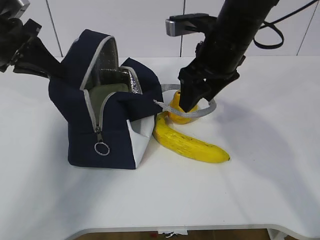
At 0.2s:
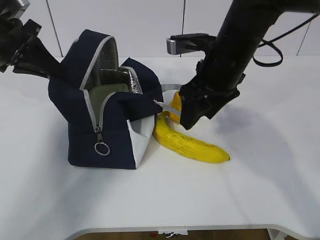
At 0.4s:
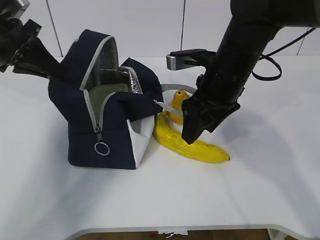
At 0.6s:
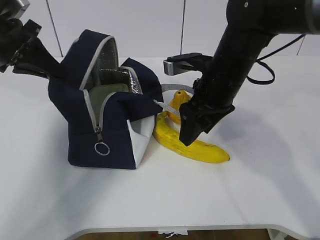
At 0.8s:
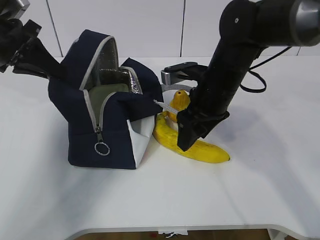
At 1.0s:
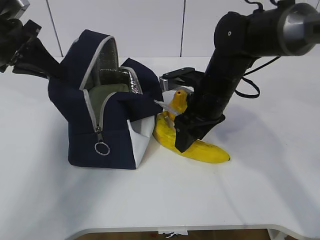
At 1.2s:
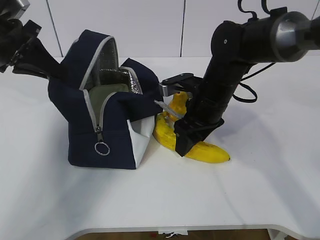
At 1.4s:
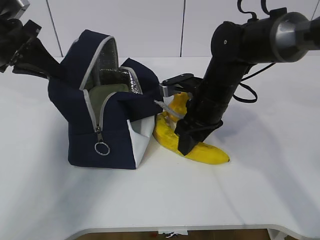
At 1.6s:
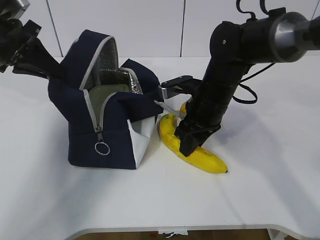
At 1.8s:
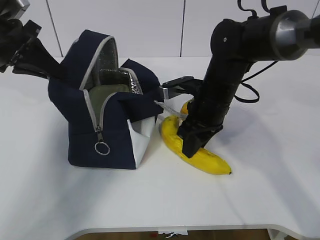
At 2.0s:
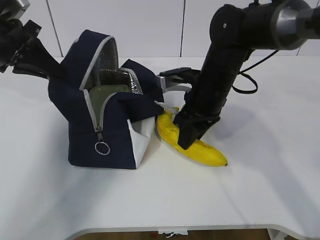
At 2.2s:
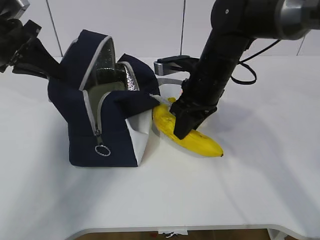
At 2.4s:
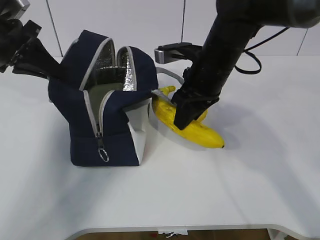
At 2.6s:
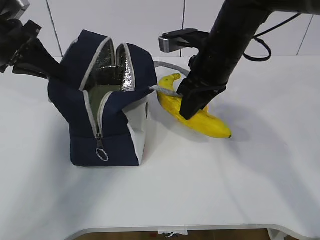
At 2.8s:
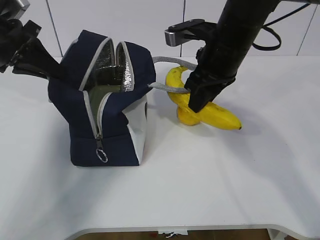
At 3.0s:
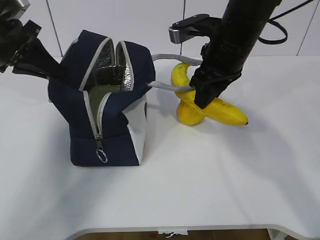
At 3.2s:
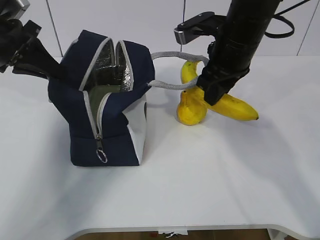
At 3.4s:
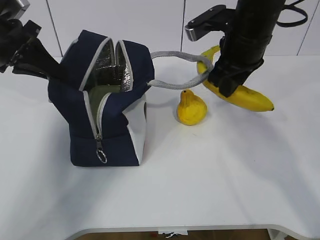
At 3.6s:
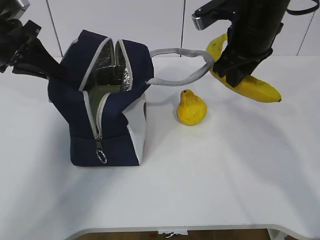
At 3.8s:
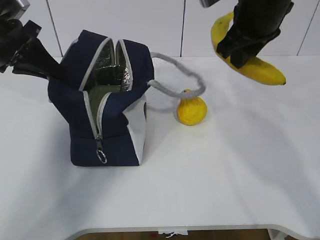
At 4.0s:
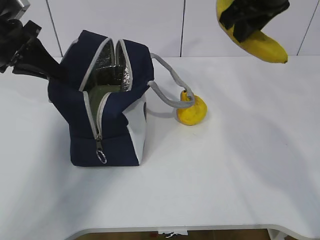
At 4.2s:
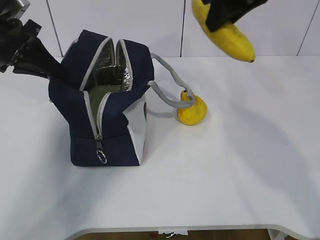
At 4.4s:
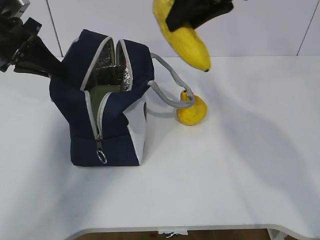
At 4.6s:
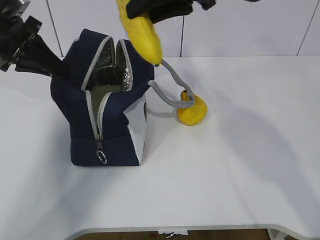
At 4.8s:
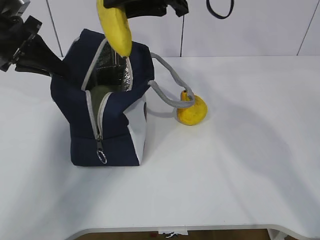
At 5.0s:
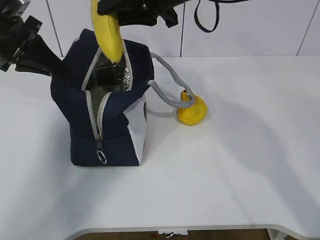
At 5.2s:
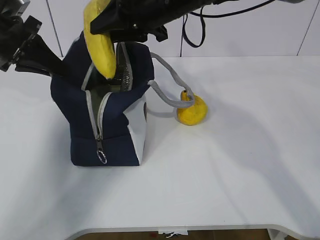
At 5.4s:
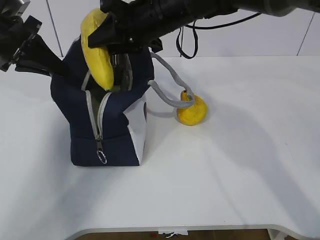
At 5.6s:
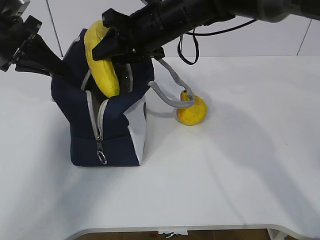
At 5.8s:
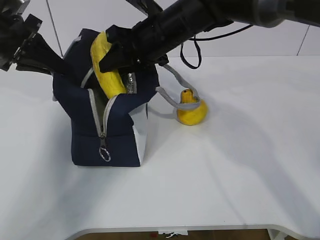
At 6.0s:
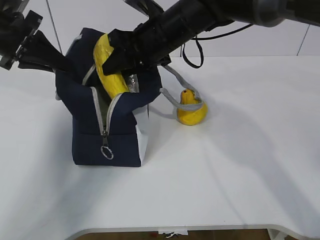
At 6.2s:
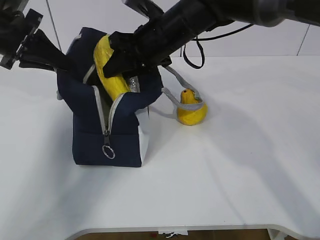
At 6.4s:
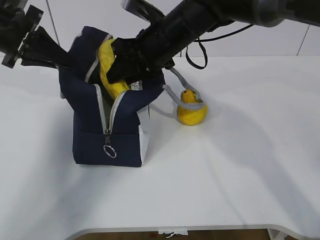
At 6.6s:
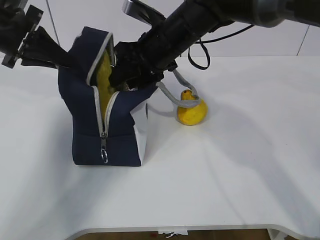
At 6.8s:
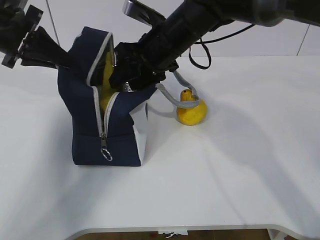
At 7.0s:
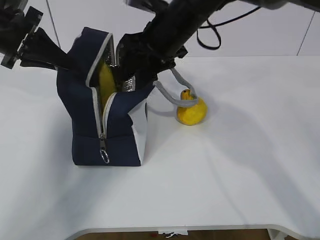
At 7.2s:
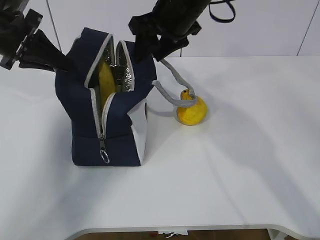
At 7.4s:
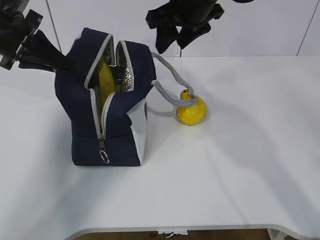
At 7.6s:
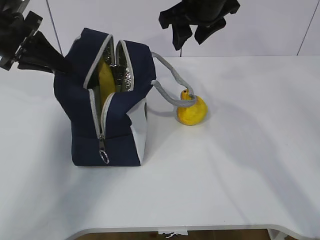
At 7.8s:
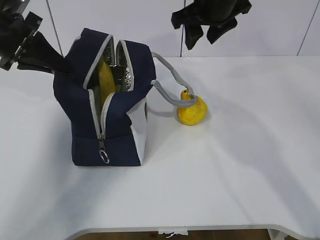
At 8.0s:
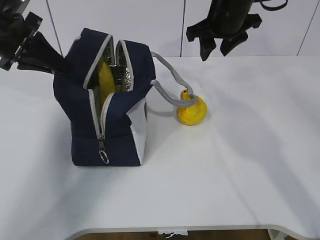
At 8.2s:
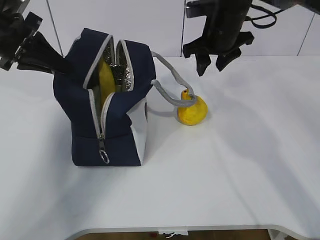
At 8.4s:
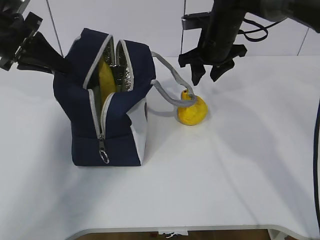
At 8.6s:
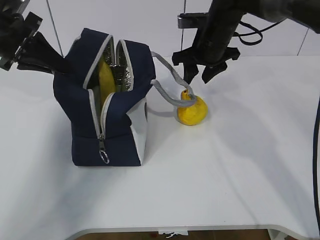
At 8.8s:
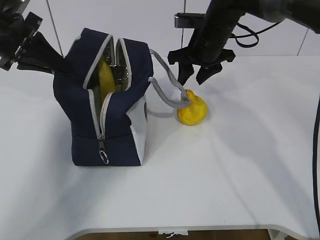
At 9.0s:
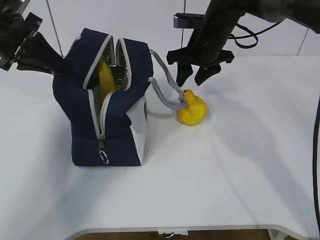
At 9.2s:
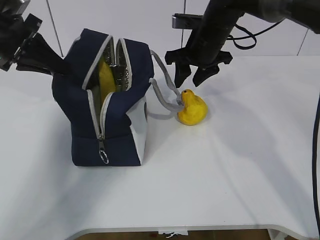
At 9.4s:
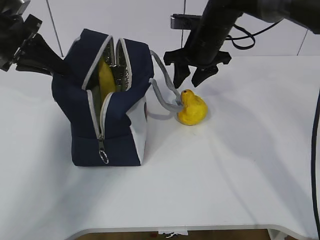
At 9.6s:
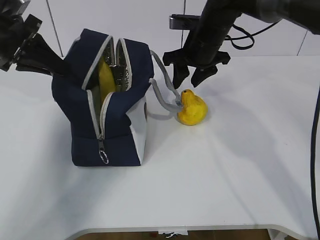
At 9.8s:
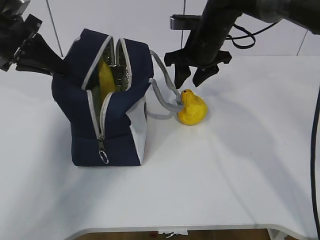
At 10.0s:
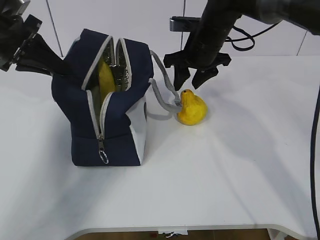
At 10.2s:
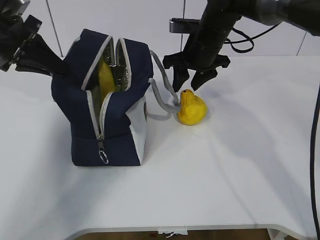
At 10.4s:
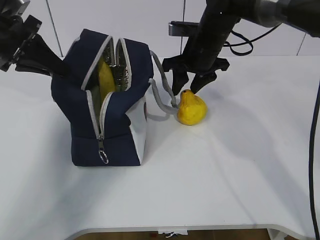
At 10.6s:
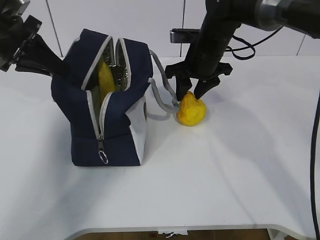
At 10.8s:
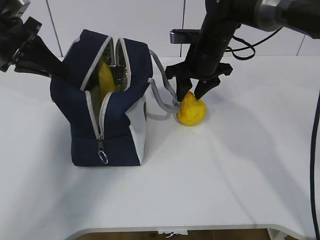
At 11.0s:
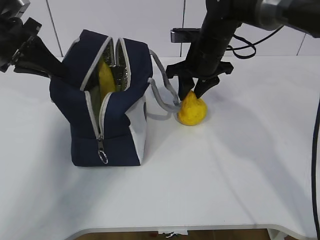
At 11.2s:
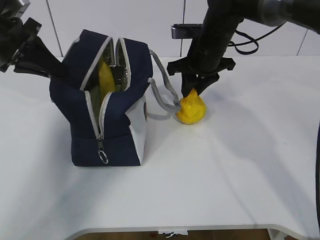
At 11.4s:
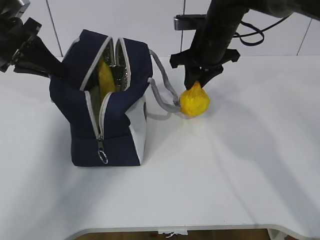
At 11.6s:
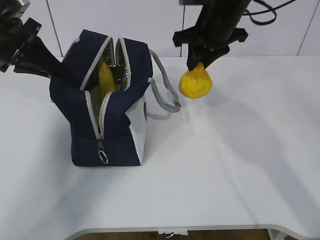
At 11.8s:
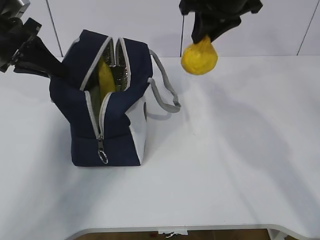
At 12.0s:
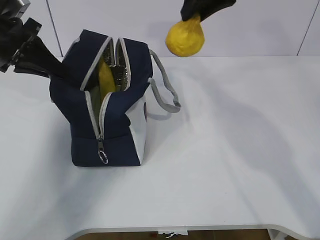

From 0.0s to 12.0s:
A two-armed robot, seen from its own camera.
Step, from 0.0s to 3.2s: Place it into the bag with your right hand.
Step, from 3.4s to 6.4s: Grab the pear with your right hand.
Step, from 8.6s to 9.4s: Grab the lunch bag with your right hand.
Step, from 9.6s to 11.0s: Move the lunch bag to the right.
From 0.0s to 1.6s: The right gripper moves downward, roughly 10 cm, and closes its fingers.
From 1.6s to 3.0s: The right gripper heads upward, covering about 10 cm.
From 3.0s to 4.4s: The right gripper moves upward, about 10 cm.
From 4.4s to 6.0s: The right gripper is displaced downward, to the left and forward by about 15 cm.
From 6.0s to 7.6s: The right gripper travels upward and to the right by approximately 10 cm.
From 7.6s to 9.0s: The right gripper travels downward by roughly 10 cm.
From 9.0s to 10.4s: The grippers move only a little.
From 10.4s to 12.0s: The right gripper shifts some 15 cm upward.

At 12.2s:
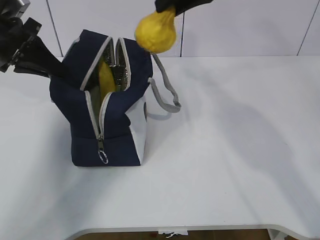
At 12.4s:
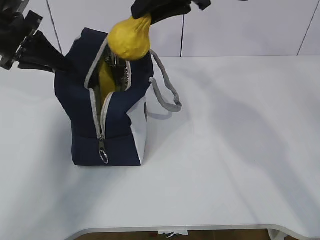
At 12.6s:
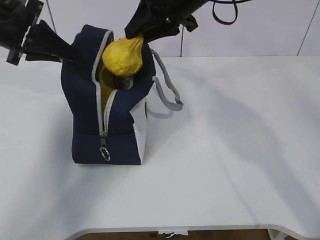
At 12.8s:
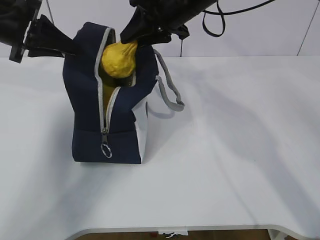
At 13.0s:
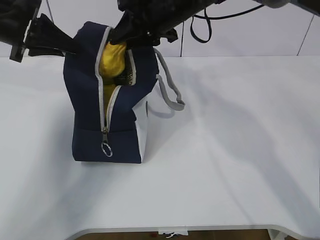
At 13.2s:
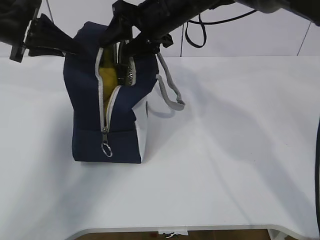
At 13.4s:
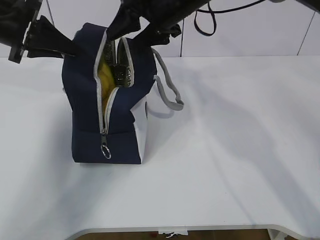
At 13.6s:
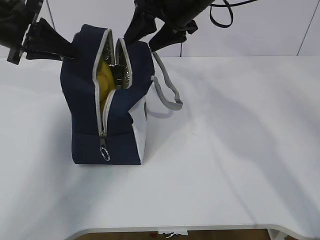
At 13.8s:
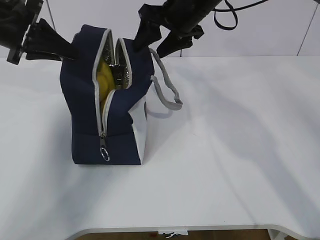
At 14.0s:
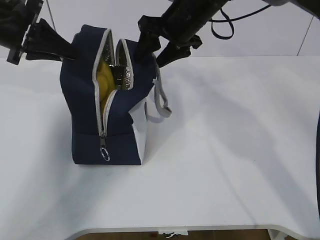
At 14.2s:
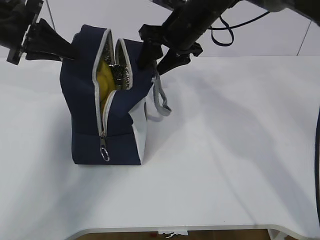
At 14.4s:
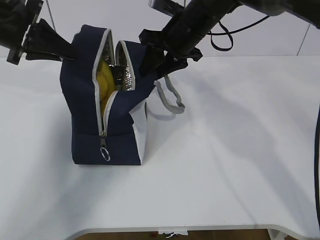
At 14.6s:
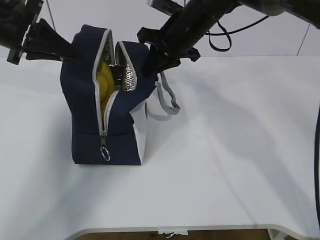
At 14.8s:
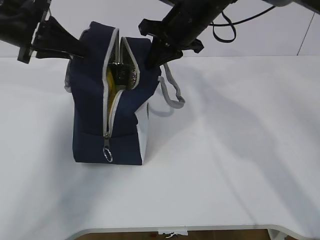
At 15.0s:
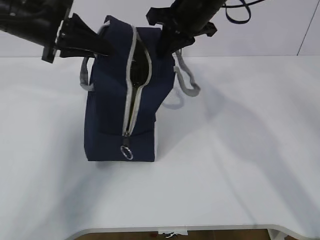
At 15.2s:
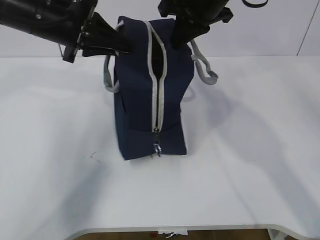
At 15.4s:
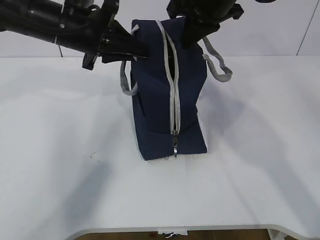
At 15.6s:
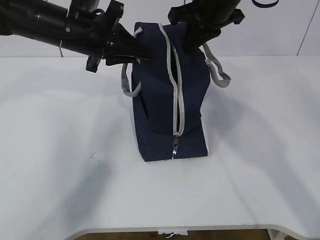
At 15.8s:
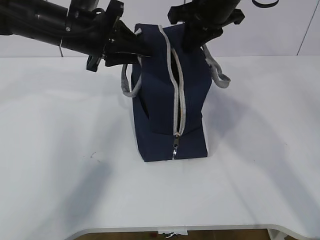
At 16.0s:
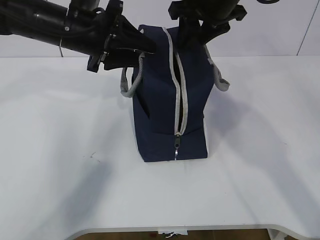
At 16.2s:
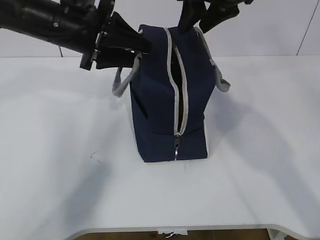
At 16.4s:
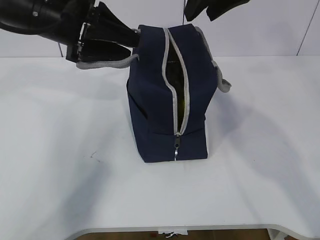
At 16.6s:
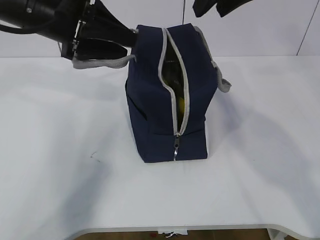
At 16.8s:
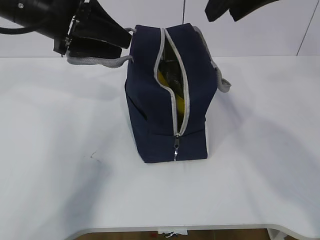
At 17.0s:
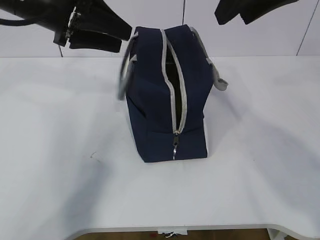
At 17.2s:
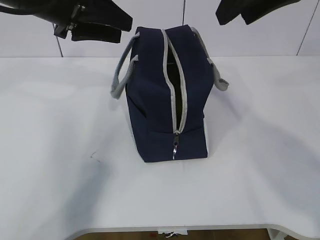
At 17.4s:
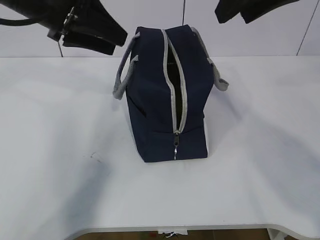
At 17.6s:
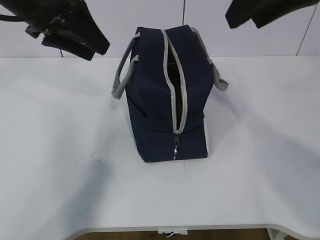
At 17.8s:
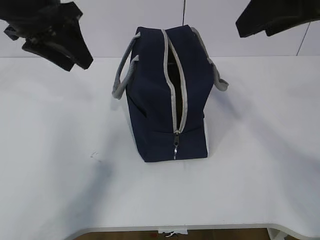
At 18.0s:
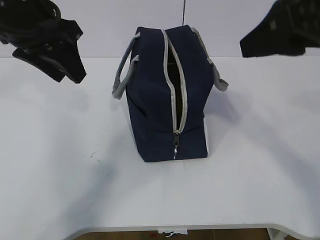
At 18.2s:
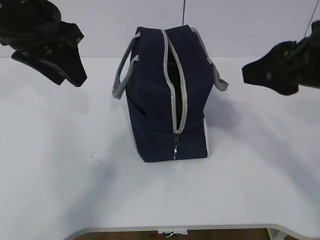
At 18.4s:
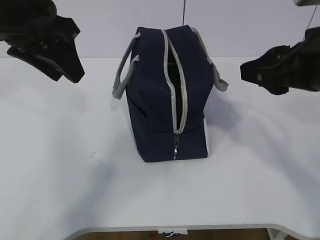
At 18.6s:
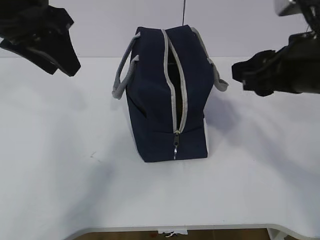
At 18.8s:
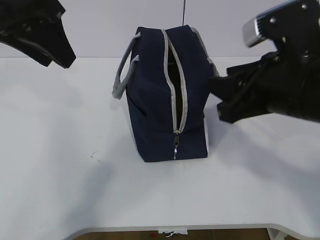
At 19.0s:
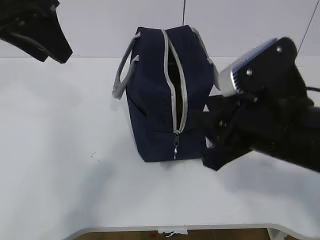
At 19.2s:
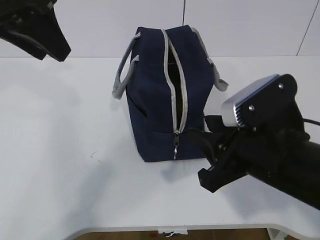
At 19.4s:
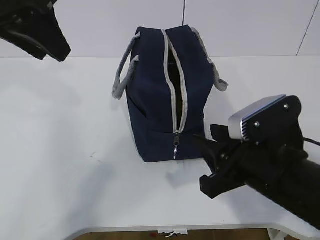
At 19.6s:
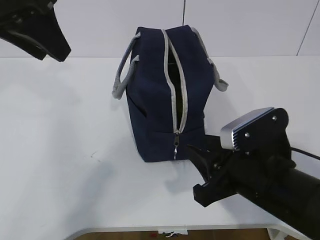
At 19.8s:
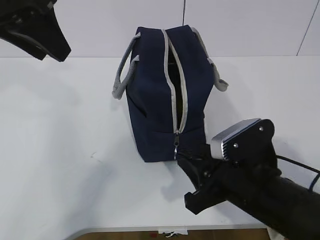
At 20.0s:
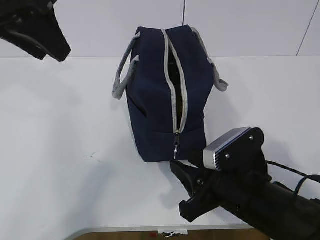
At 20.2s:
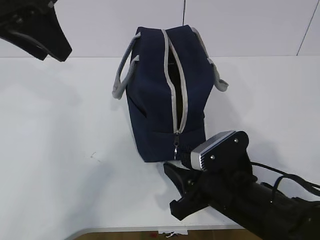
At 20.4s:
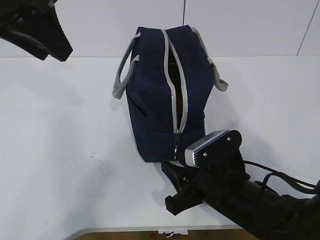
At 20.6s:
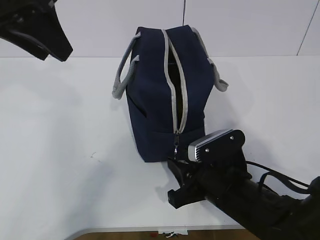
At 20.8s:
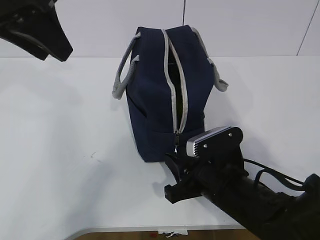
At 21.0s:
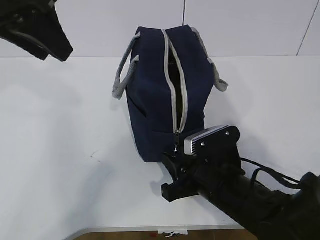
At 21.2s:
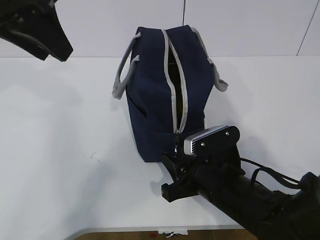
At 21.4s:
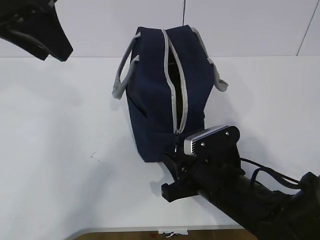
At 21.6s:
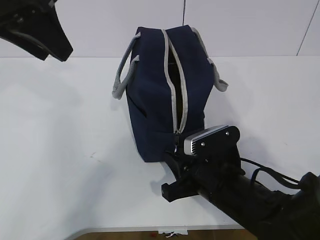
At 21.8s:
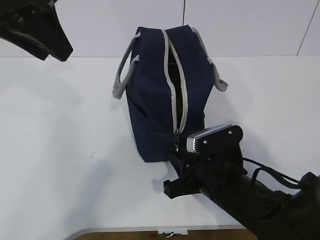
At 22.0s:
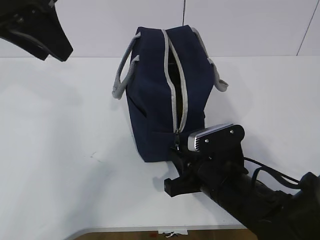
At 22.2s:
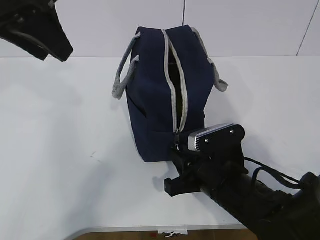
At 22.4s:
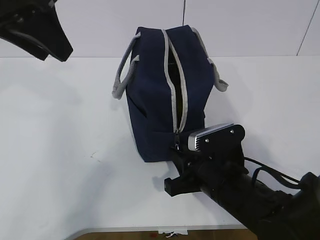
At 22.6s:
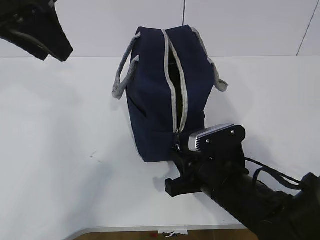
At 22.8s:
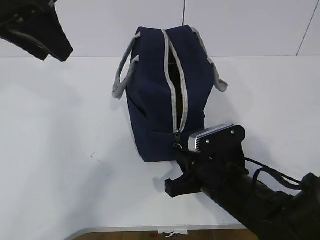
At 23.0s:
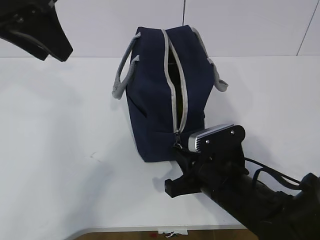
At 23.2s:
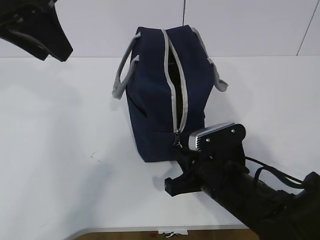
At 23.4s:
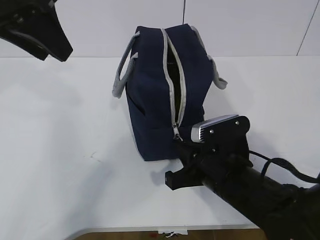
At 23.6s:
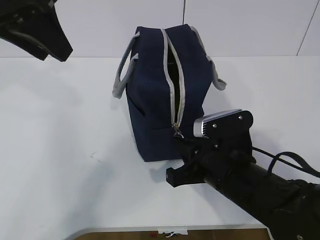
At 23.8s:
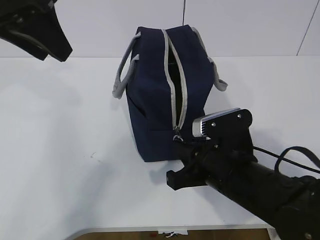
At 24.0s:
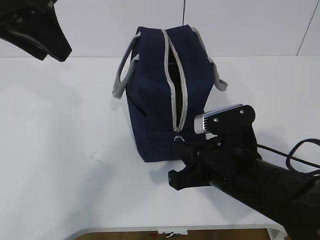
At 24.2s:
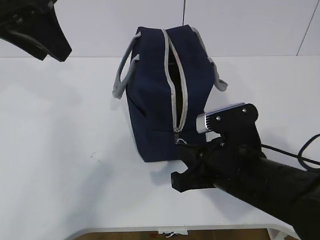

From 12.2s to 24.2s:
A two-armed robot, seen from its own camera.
Step, from 12.2s to 22.8s: Grab the lunch bag with your left hand.
From 12.2s to 13.8s: The right gripper is displaced downward and forward by about 10 cm, and opens up.
From 13.8s to 15.2s: The left gripper shifts about 10 cm to the right. The right gripper closes up.
From 15.2s to 16.6s: The right gripper shifts some 10 cm upward and backward, and opens, while the left gripper opens up.
From 16.6s to 18.2s: The right gripper heads backward and downward, covering roughly 15 cm, while the left gripper ends up about 5 cm from where it was.
From 18.2s to 19.8s: The right gripper goes some 20 cm downward, while the left gripper changes place by some 5 cm.
From 19.8s to 21.2s: The right gripper ends up approximately 5 cm from where it was.
From 21.2s to 22.6s: Neither gripper changes place.
From 22.6s to 24.2s: The right gripper goes roughly 5 cm upward.
